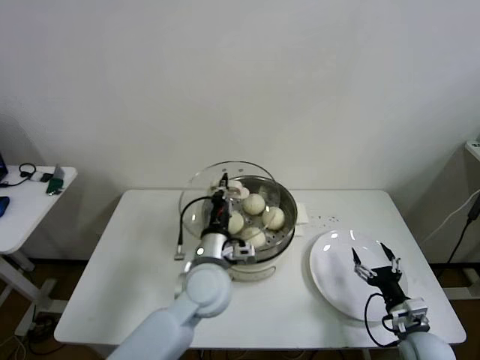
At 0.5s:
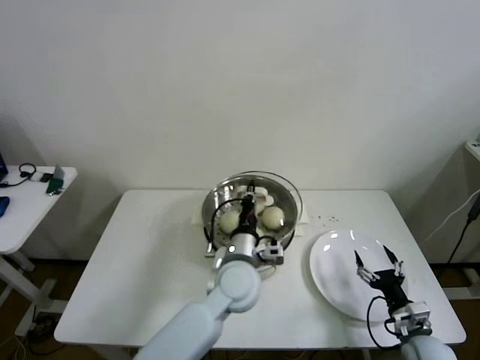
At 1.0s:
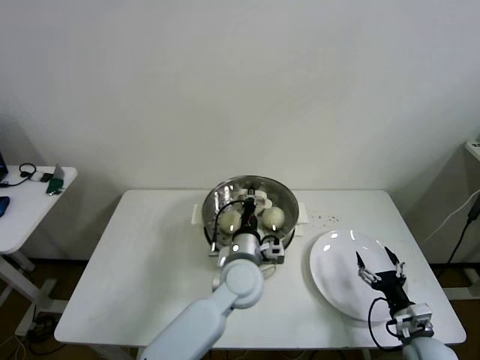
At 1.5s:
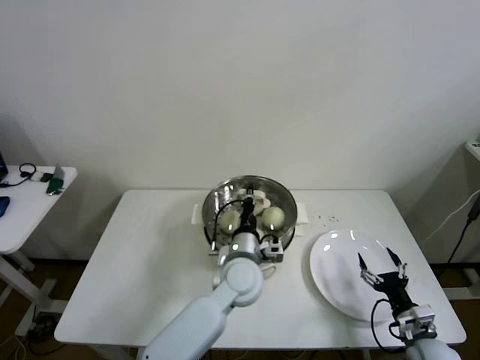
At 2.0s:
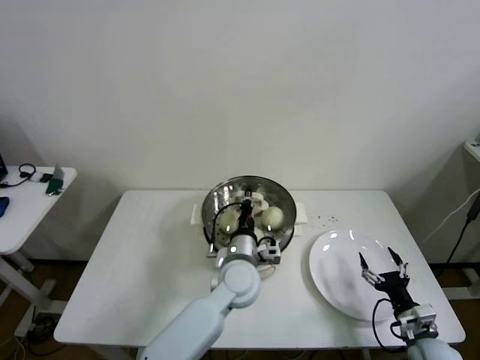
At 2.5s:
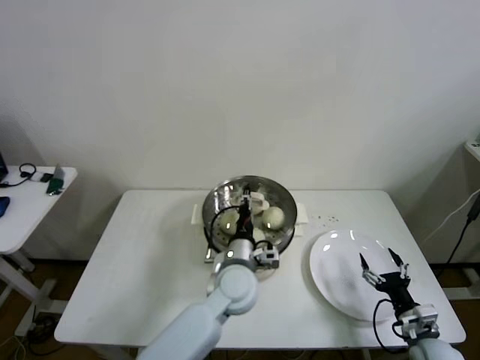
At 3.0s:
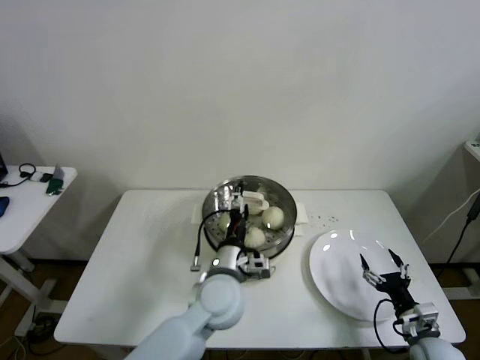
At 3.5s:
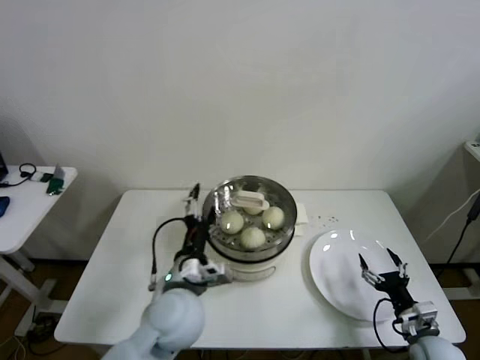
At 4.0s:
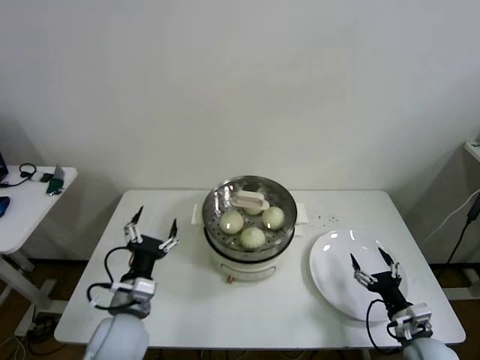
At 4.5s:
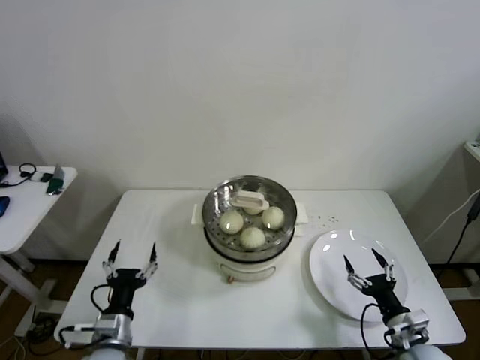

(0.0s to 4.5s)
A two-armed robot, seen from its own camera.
Step, 0.0s - 2.0s: Place the pot lid on the steamer with left gripper.
0.0s - 2.0s: The left gripper shifts approximately 10 cm to the right and downward.
2.0s - 4.5s: The left gripper shifts roughly 30 cm to the left and backward, and opens its fingers.

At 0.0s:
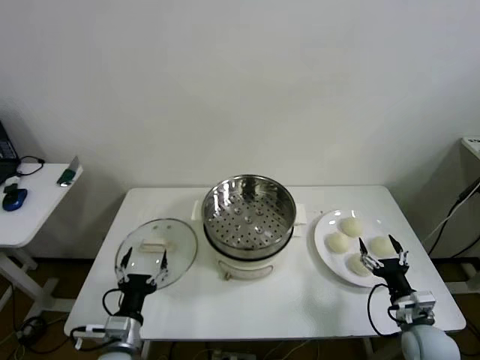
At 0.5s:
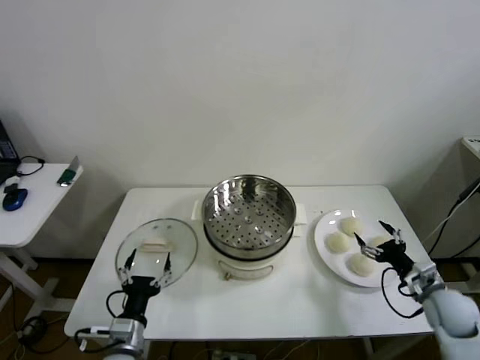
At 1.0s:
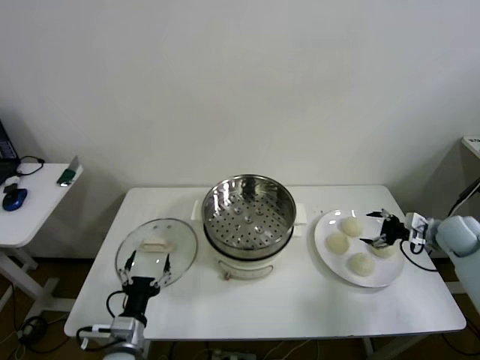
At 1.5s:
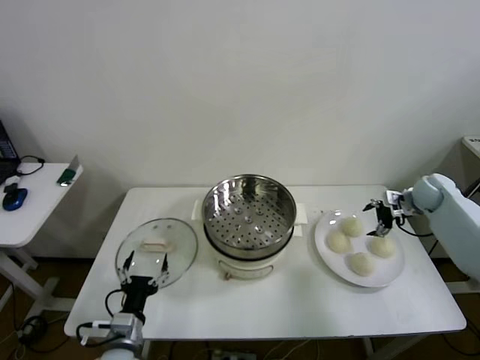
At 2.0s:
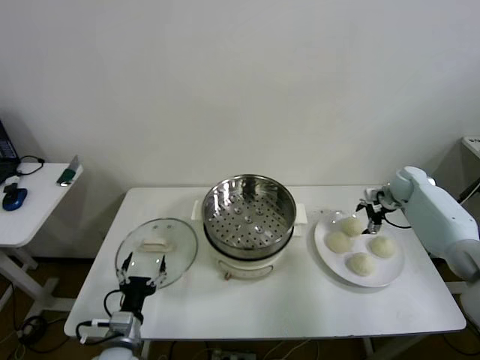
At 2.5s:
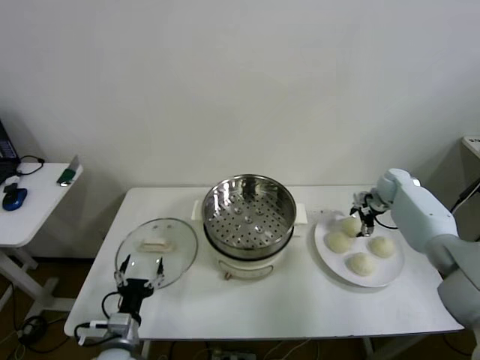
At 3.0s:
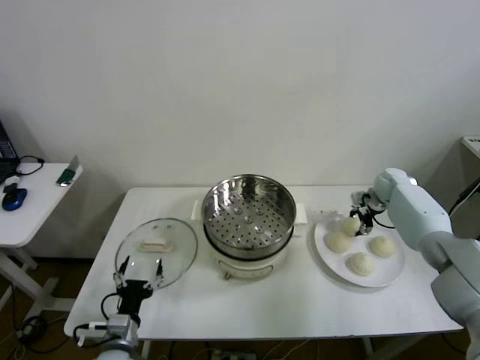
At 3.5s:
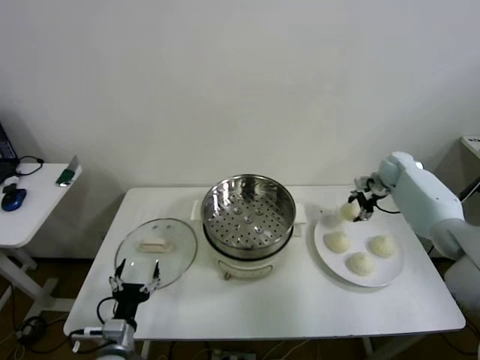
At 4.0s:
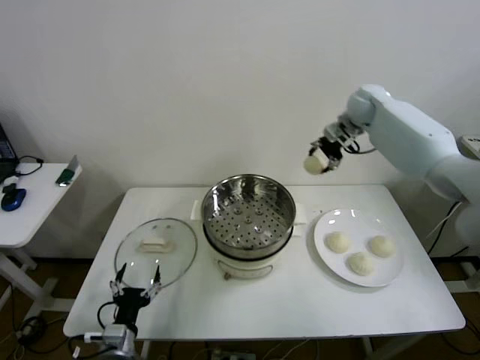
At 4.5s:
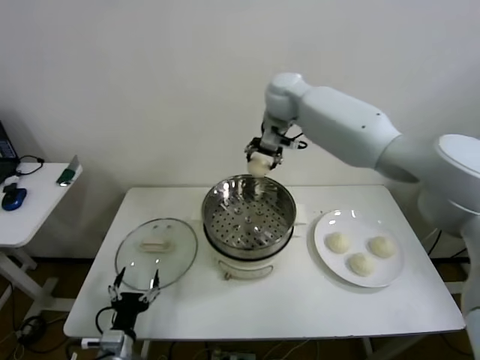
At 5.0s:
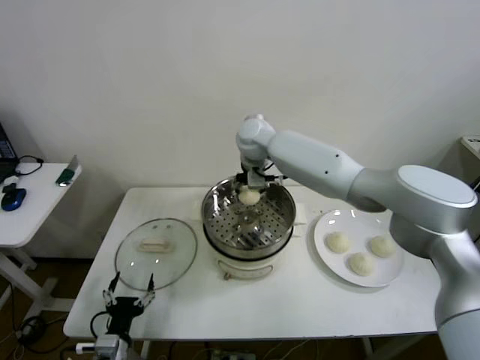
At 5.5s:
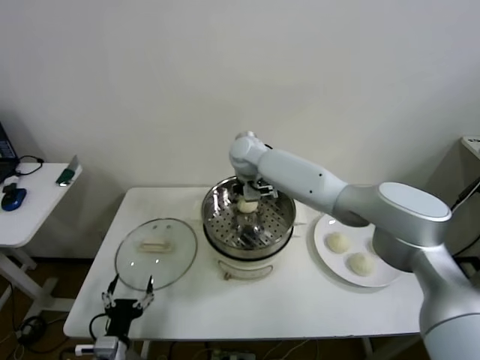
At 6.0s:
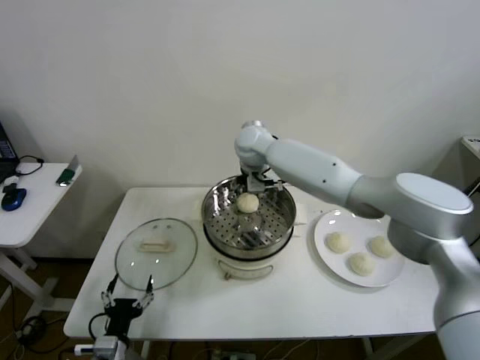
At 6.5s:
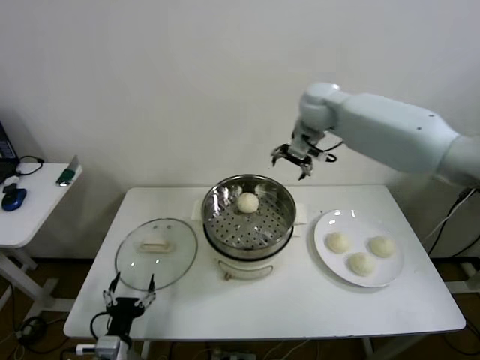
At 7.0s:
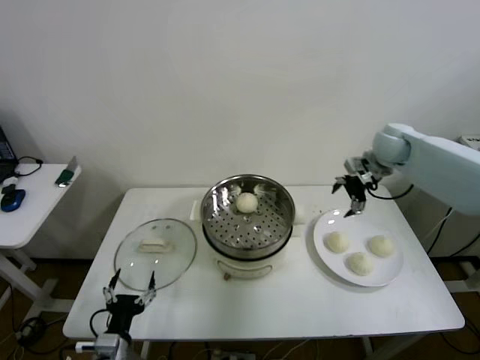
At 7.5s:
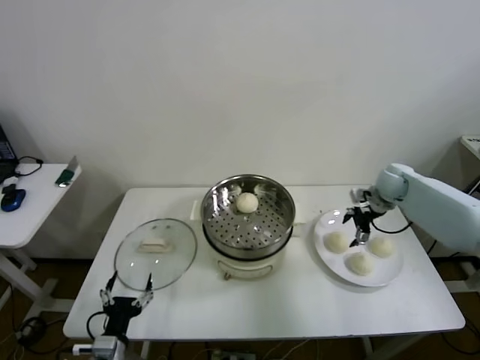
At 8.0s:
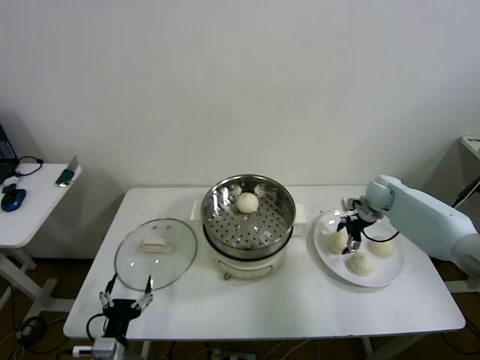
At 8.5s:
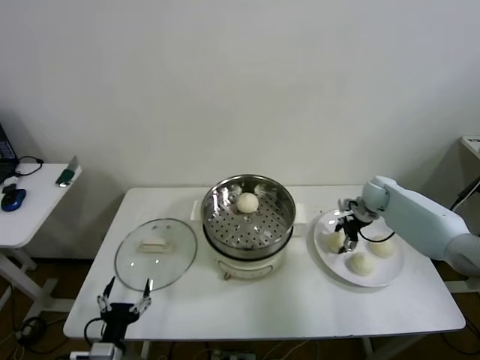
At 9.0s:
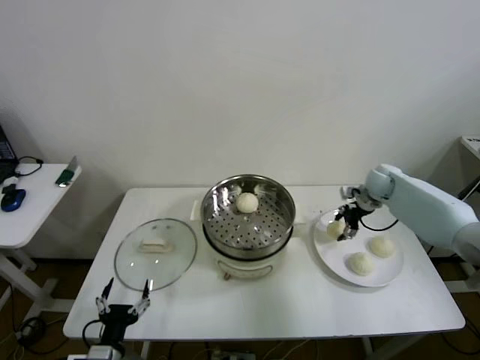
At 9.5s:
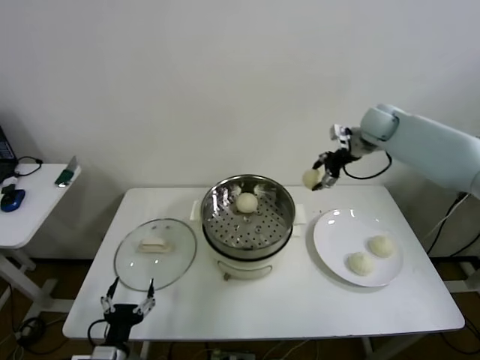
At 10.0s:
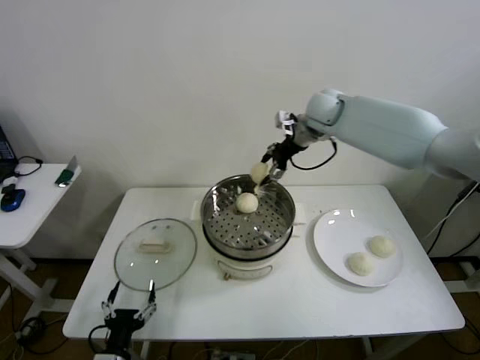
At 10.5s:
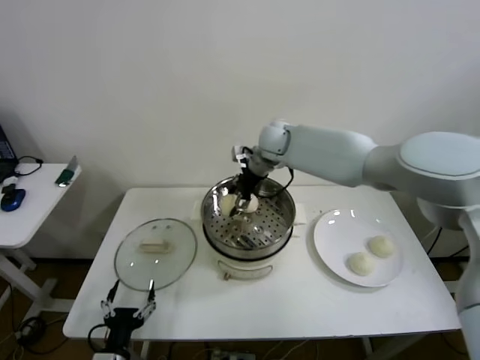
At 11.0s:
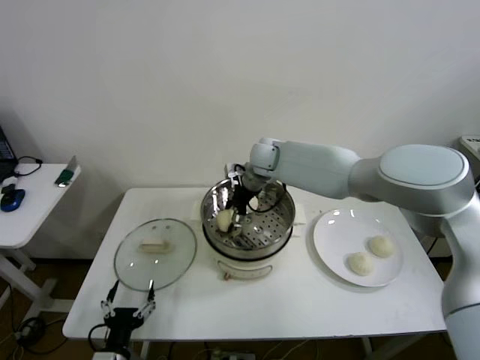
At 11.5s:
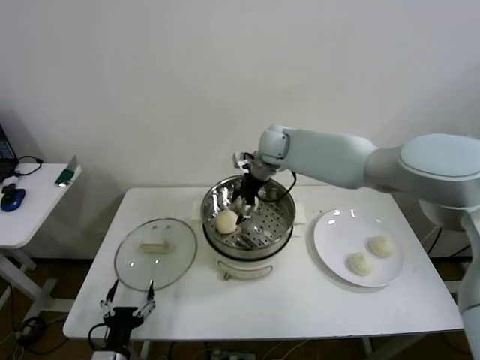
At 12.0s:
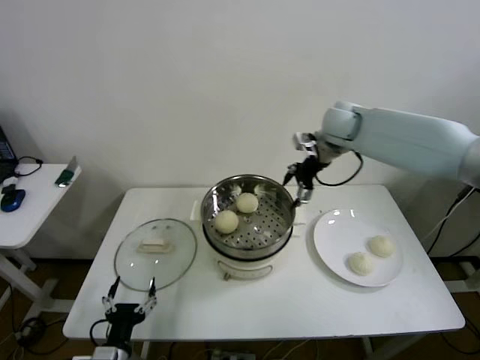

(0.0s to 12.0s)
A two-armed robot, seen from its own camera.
Step, 0.0s - 2.5s: Grasp the baozi in the plate with right gripper.
Step, 3.0s - 6.0s: Place the baozi on the steamer with right gripper.
Step, 6.5s - 8.5s: Grasp the baozi in the plate with right gripper.
Step, 9.0s - 11.5s: Place the baozi on the steamer with right gripper.
2.0s - 4.0s: The right gripper travels upward and to the left by some 30 cm, and closes.
4.0s - 6.0s: The right gripper goes about 25 cm to the left, and opens its fingers.
6.0s - 8.0s: The right gripper is displaced to the right and downward by approximately 40 cm.
8.0s - 10.0s: The right gripper heads upward and to the left, covering some 30 cm, and closes up.
10.0s - 12.0s: The right gripper travels to the left and back again, some 15 cm each way, and opens up.

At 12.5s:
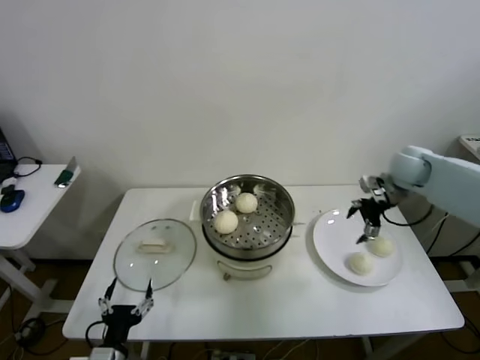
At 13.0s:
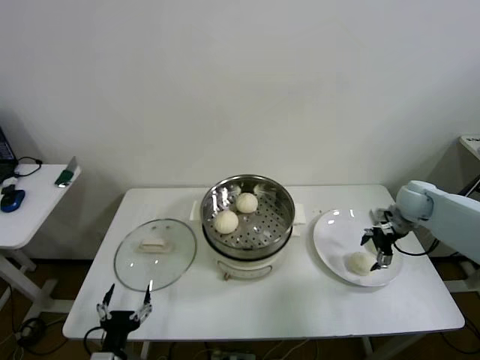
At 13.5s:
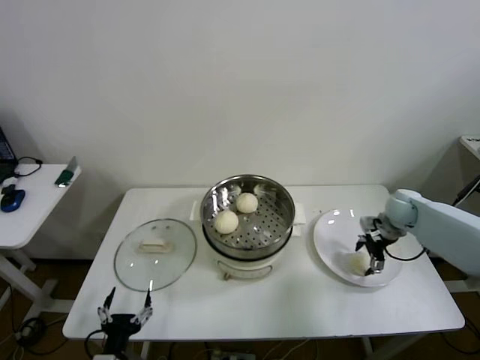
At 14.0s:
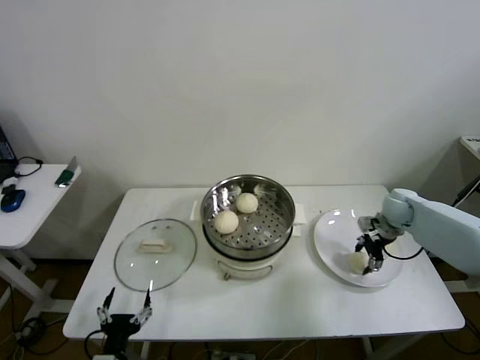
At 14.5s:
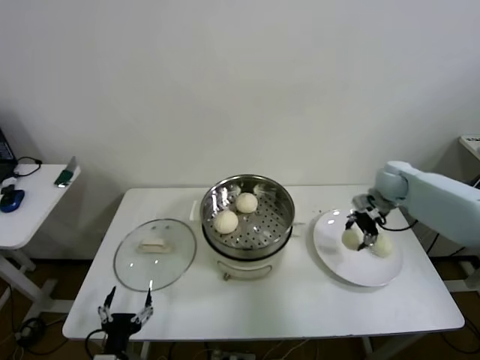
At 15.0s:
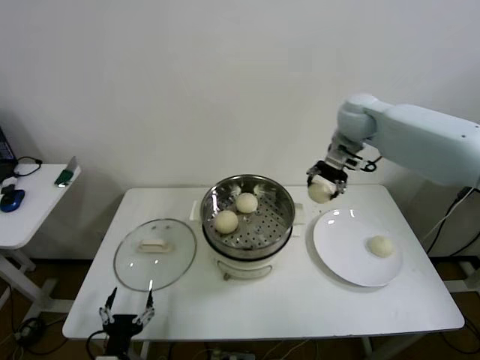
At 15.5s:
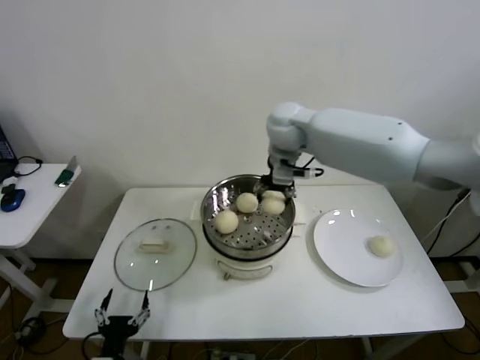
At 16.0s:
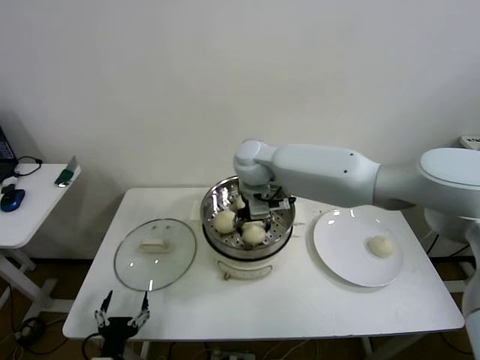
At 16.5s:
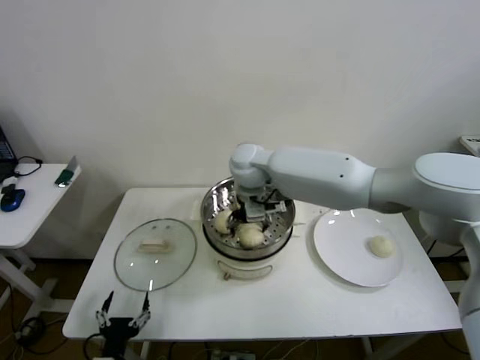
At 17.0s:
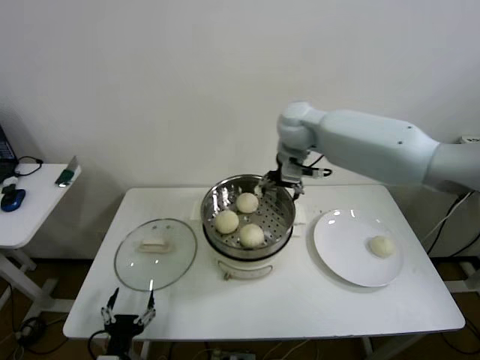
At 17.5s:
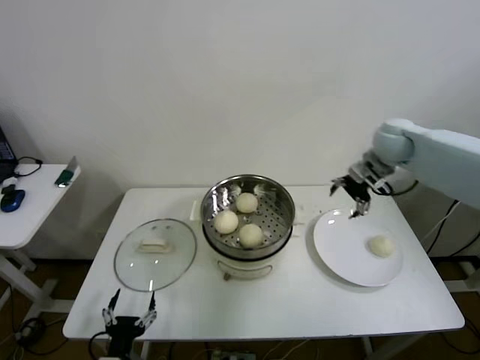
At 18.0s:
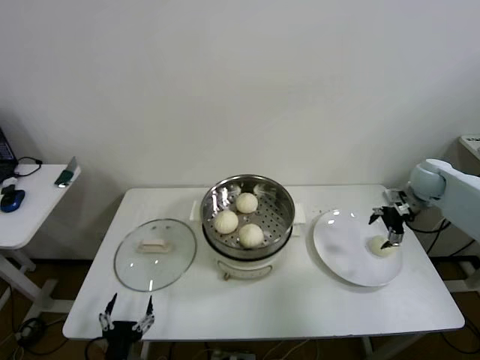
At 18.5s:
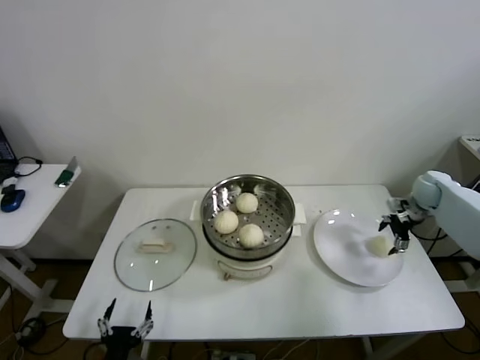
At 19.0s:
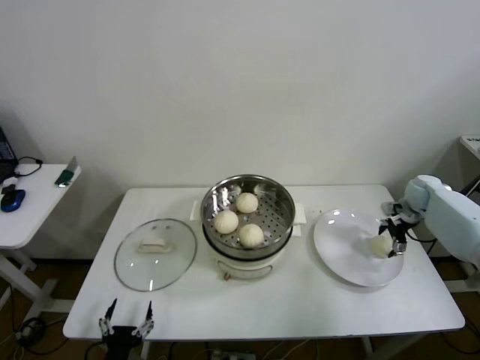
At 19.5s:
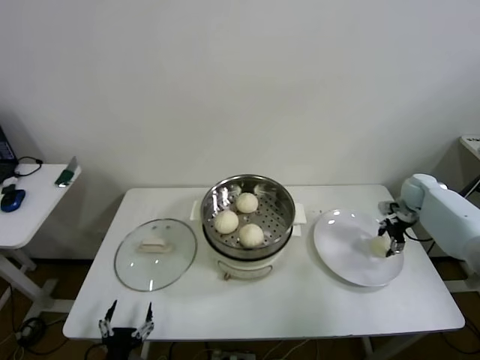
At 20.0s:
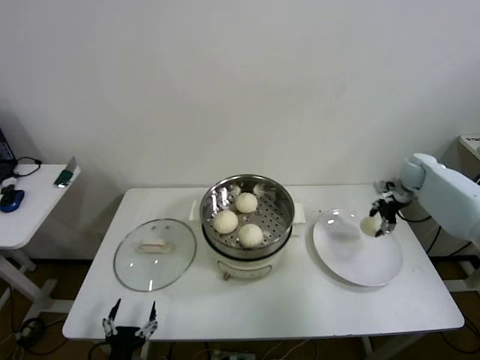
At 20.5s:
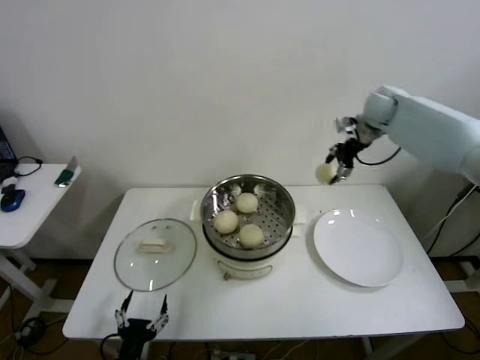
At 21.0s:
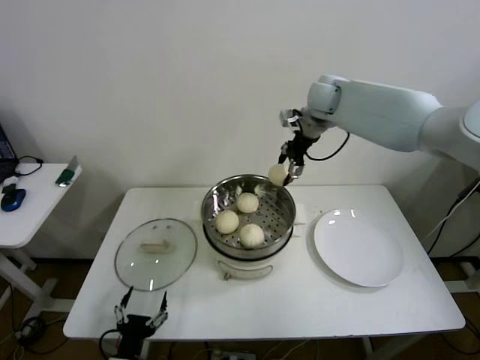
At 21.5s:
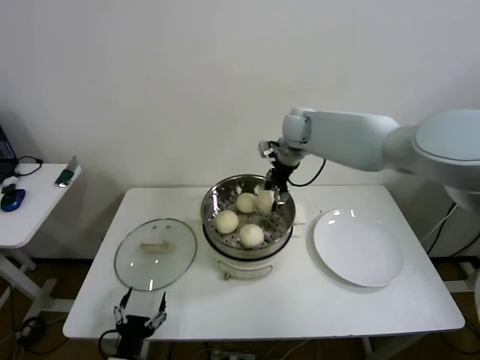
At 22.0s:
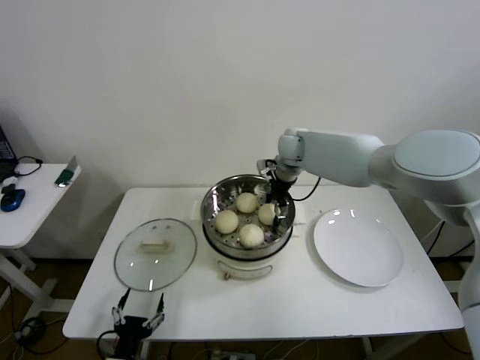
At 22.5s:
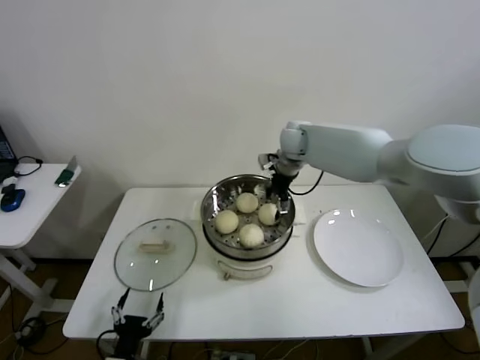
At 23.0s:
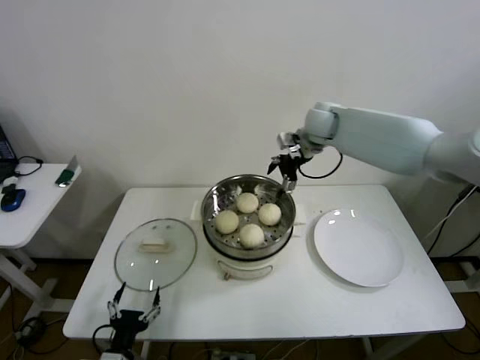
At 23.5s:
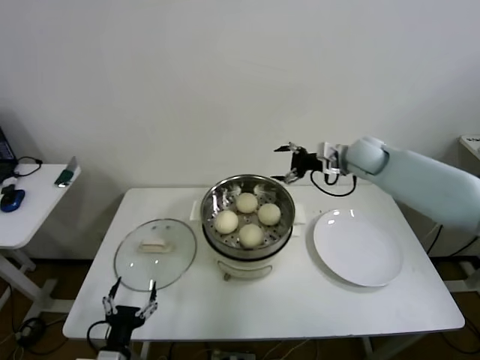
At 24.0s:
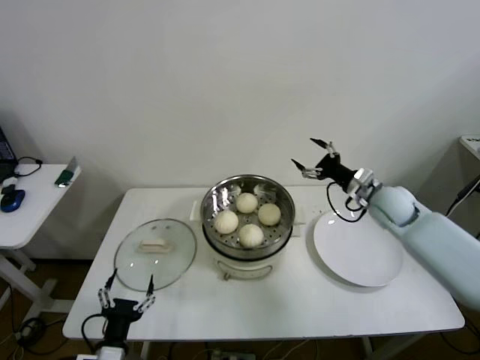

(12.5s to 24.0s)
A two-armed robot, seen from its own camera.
Step, 14.0s - 16.5s: Place the baozi on the steamer with right gripper.
Step, 17.0s - 19.5s: Grasp the baozi in the plate with right gripper.
Step, 20.0s - 22.5s: Place the baozi on the steamer with right gripper.
12.5s - 14.5s: The right gripper shifts approximately 5 cm downward, and closes.
14.5s - 16.5s: The right gripper heads to the left, covering about 35 cm, and opens.
16.5s - 18.5s: The right gripper is displaced to the right by roughly 50 cm.
18.5s - 20.0s: The right gripper moves approximately 5 cm, and closes up.
20.0s - 22.0s: The right gripper travels to the left by about 35 cm, and opens up.
22.0s - 24.0s: The right gripper heads to the right and backward, covering approximately 25 cm, and opens its fingers.
